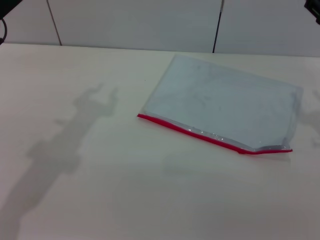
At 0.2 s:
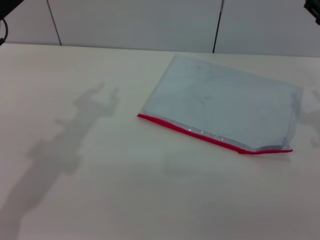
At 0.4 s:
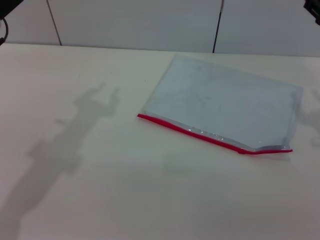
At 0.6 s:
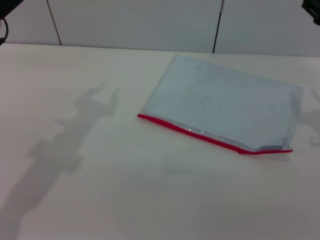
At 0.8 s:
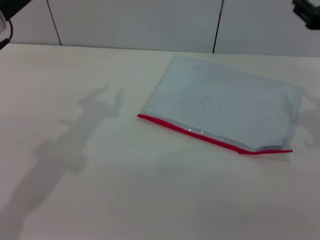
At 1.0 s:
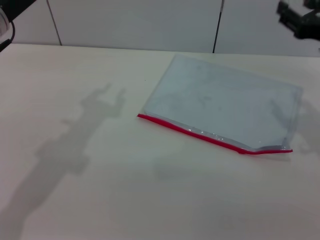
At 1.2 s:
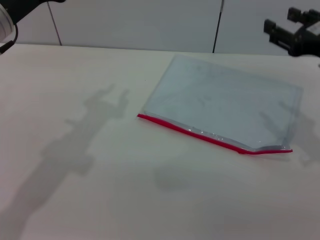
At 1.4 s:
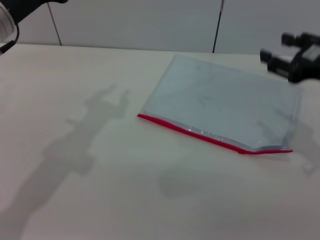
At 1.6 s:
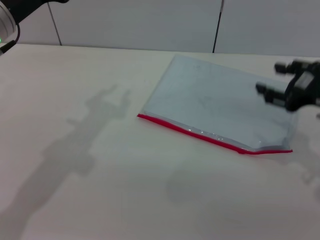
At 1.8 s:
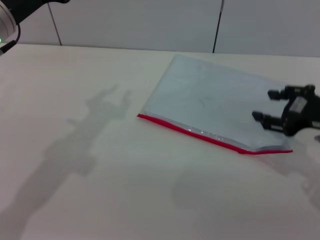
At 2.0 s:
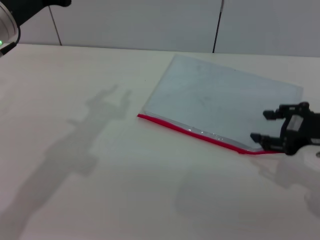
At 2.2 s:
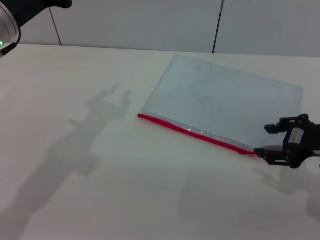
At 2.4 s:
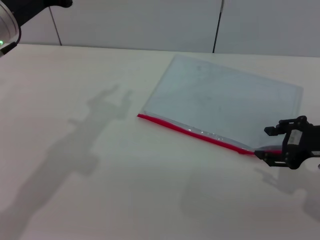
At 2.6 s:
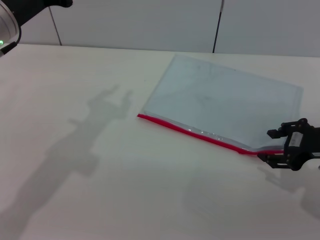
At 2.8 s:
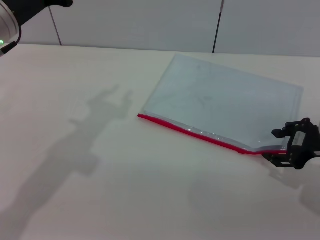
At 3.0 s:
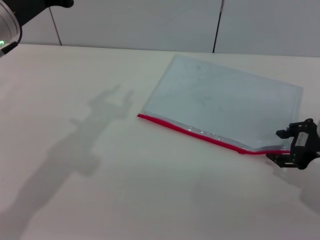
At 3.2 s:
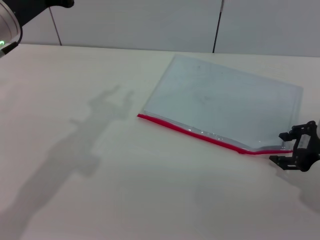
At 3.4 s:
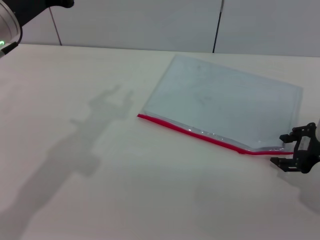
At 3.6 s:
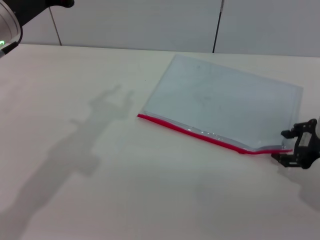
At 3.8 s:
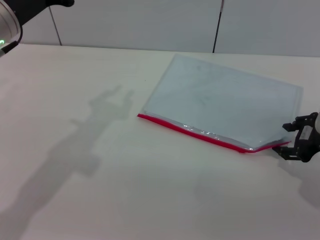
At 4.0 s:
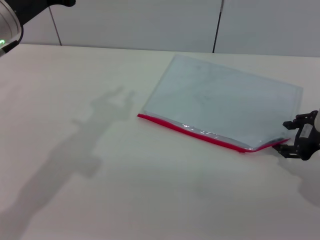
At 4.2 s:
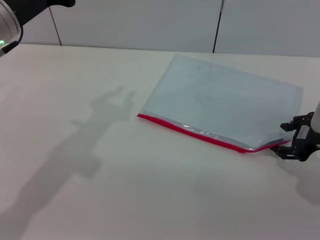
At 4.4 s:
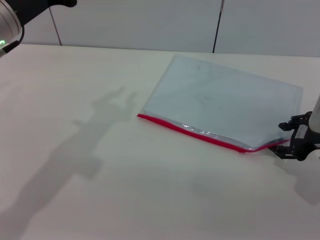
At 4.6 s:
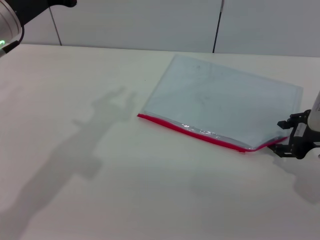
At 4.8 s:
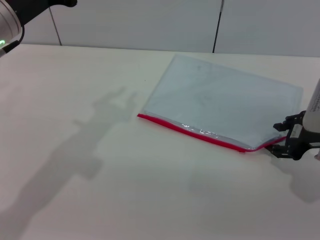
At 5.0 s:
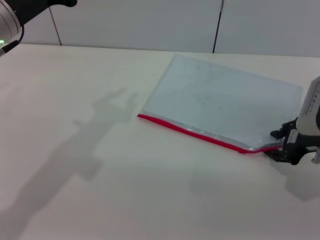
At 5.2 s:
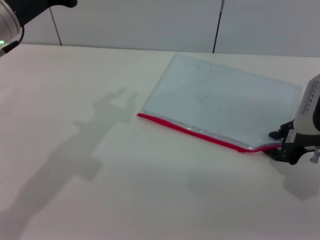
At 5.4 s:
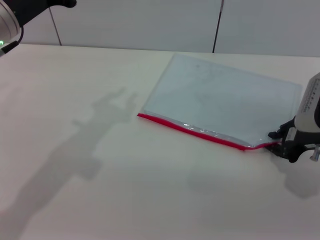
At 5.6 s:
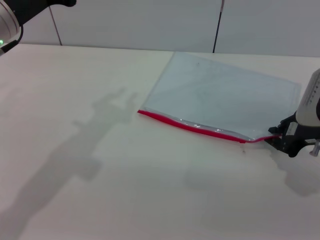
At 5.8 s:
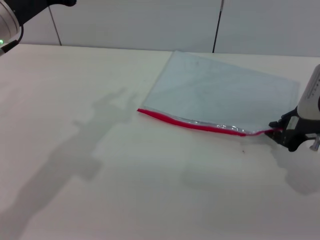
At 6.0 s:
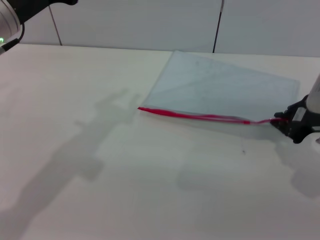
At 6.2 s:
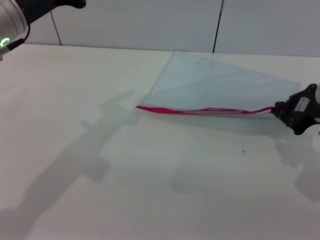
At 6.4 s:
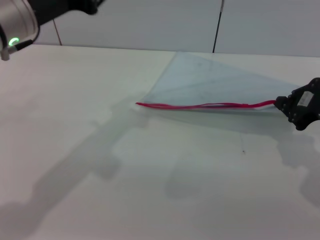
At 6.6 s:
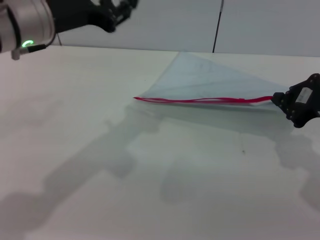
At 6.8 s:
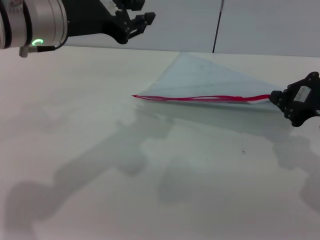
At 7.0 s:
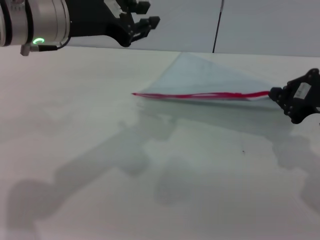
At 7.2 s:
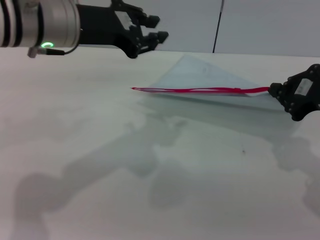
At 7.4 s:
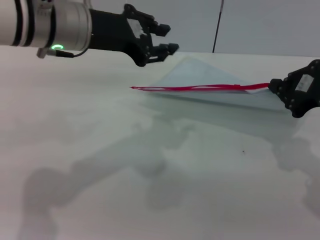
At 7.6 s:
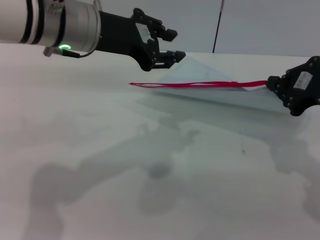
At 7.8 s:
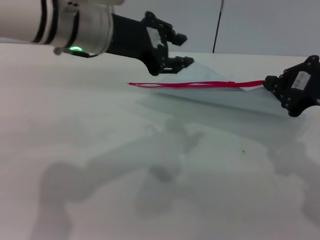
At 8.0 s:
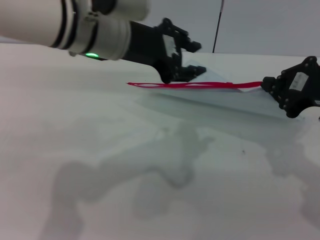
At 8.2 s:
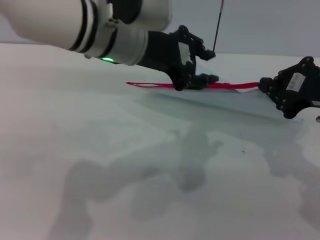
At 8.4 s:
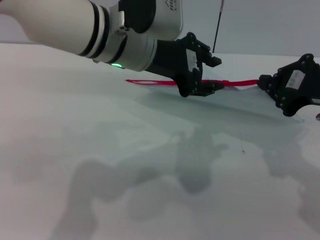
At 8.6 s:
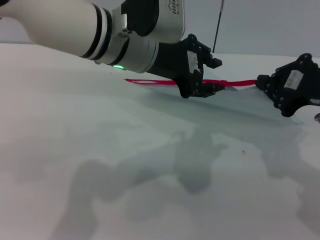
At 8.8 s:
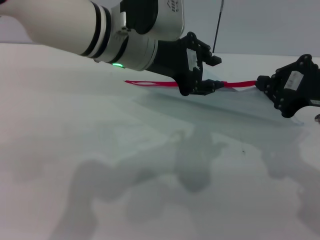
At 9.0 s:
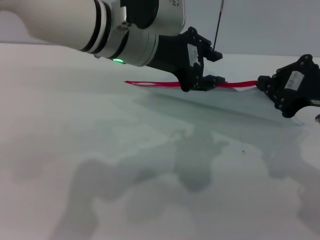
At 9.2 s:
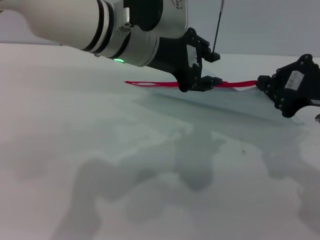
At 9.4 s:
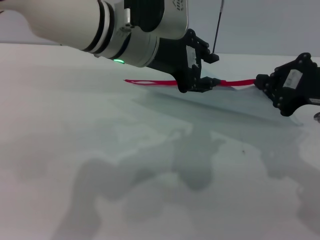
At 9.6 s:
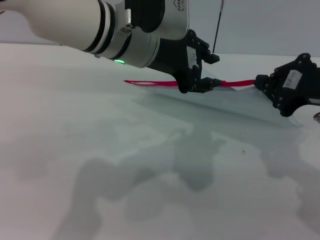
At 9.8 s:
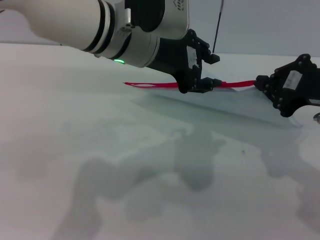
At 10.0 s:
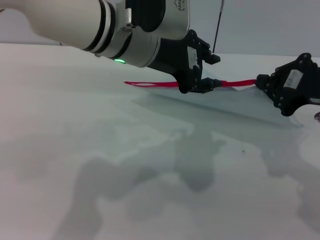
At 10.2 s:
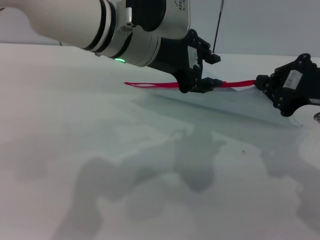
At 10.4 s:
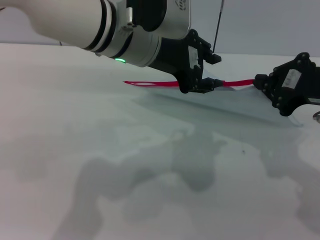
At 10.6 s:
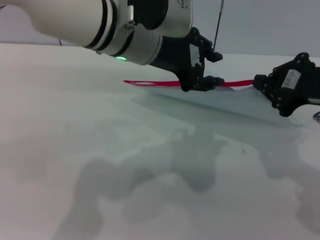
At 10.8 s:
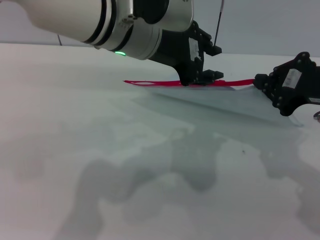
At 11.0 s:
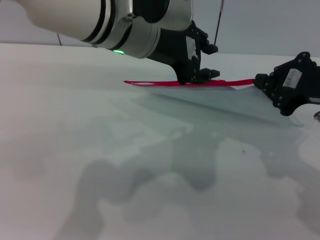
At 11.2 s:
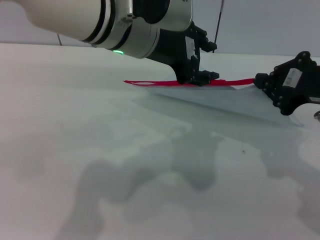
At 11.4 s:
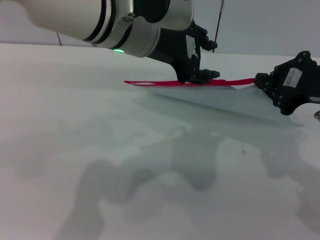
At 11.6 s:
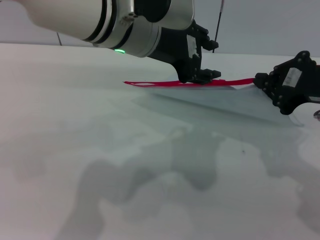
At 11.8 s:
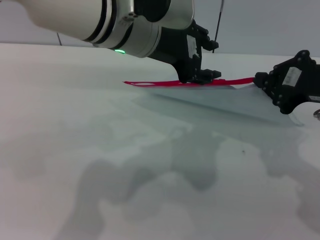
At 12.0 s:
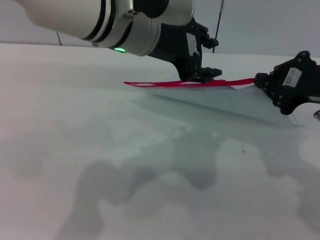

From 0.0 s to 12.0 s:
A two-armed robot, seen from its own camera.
Step, from 0.0 s to 6.4 s: Pick up the transparent plastic bag with the right gripper.
From 3.0 s to 4.4 s: Neither gripper changes place.
From 4.4 s to 6.0 s: The right gripper closes.
From 6.0 s to 7.6 s: The right gripper is displaced upward by some 5 cm; the left gripper goes some 10 cm to the right.
From 7.6 s to 9.0 s: The left gripper travels to the right by some 5 cm.
From 9.0 s to 10.4 s: Both grippers stay put.
From 10.4 s to 12.0 s: Both grippers stay about where they are.

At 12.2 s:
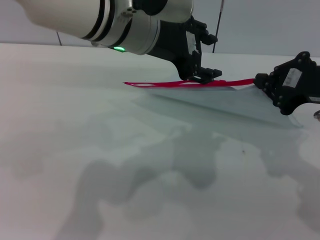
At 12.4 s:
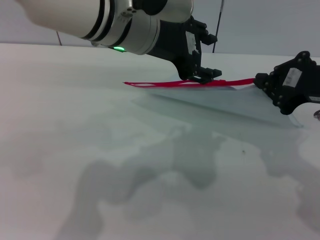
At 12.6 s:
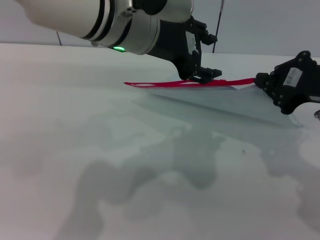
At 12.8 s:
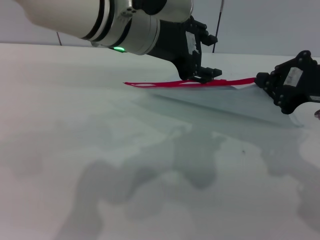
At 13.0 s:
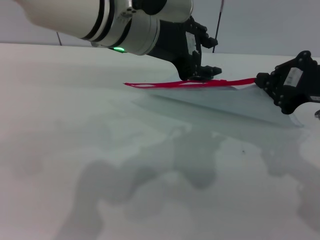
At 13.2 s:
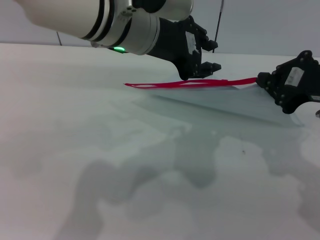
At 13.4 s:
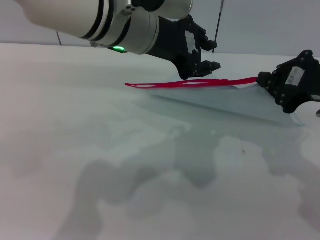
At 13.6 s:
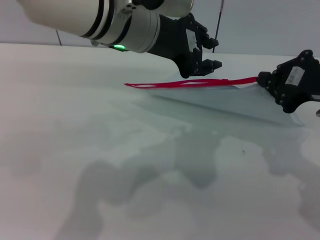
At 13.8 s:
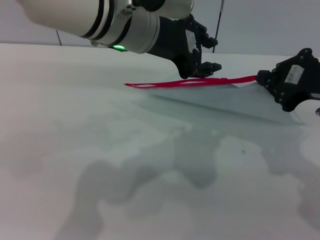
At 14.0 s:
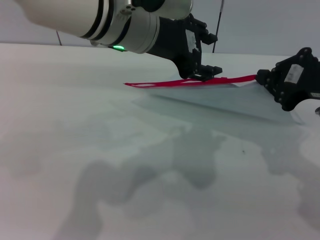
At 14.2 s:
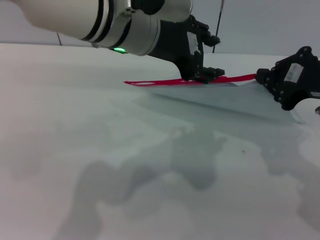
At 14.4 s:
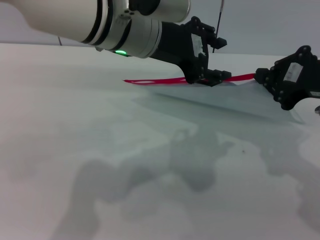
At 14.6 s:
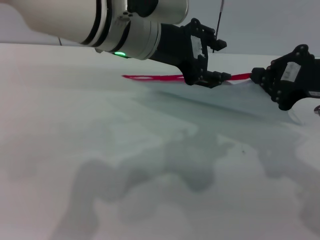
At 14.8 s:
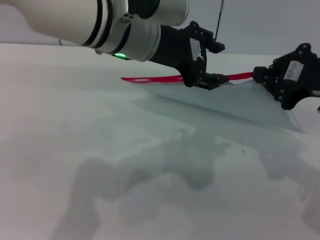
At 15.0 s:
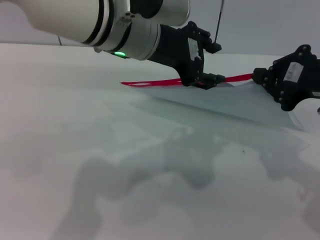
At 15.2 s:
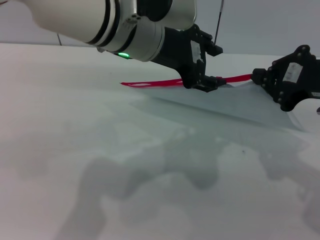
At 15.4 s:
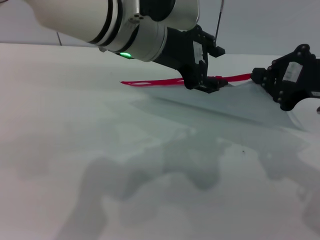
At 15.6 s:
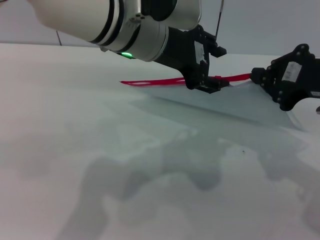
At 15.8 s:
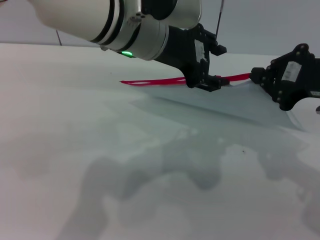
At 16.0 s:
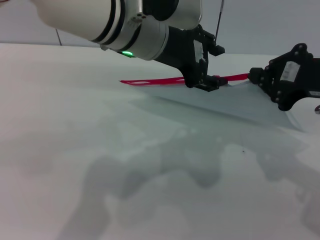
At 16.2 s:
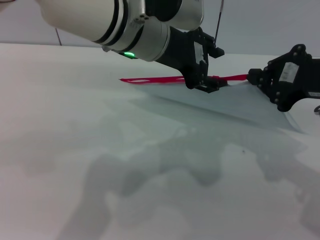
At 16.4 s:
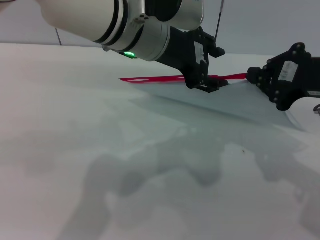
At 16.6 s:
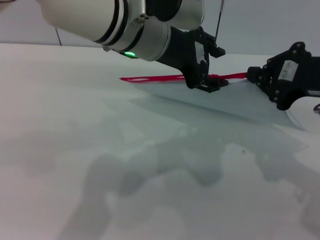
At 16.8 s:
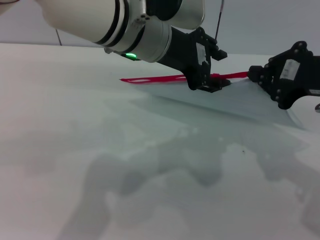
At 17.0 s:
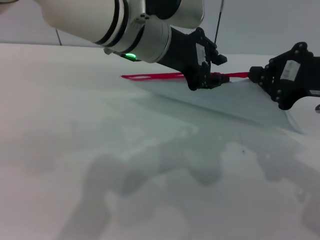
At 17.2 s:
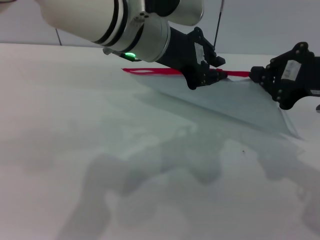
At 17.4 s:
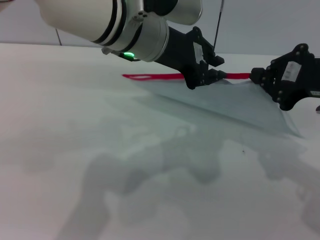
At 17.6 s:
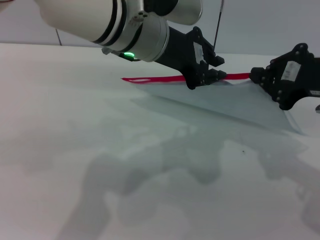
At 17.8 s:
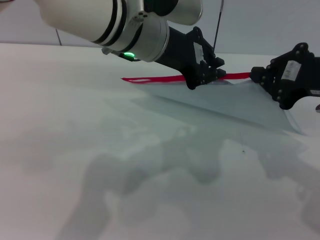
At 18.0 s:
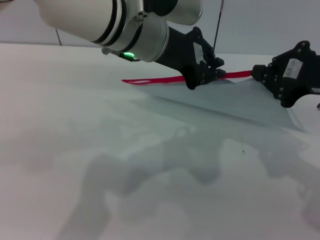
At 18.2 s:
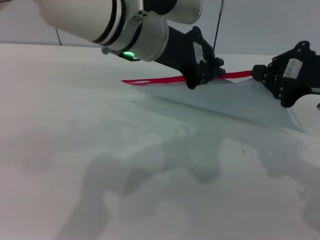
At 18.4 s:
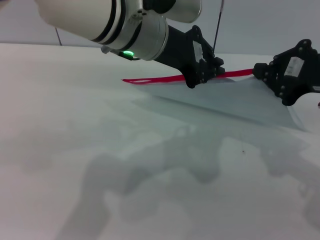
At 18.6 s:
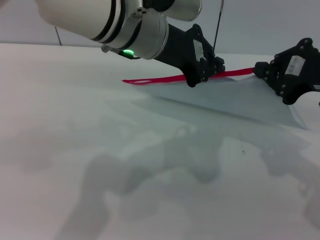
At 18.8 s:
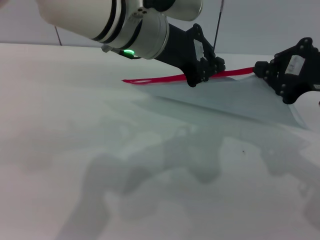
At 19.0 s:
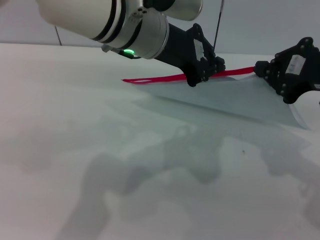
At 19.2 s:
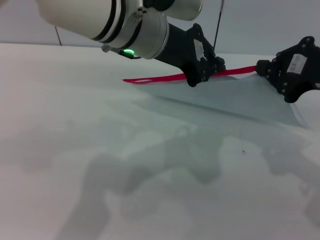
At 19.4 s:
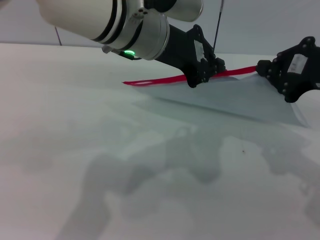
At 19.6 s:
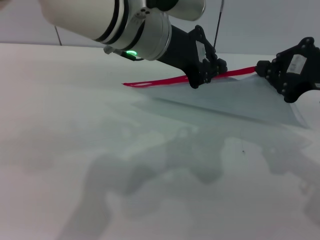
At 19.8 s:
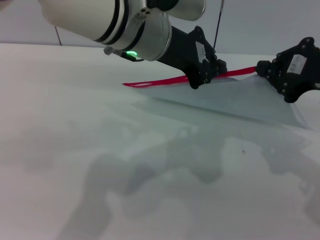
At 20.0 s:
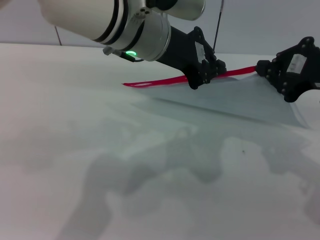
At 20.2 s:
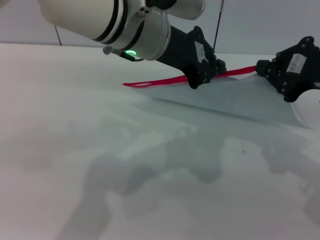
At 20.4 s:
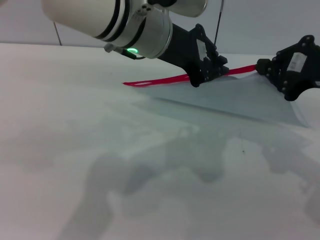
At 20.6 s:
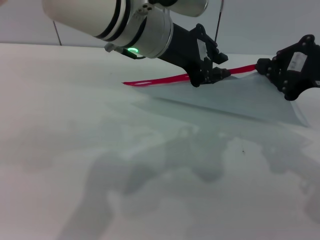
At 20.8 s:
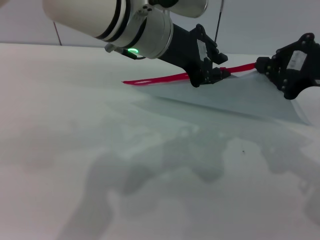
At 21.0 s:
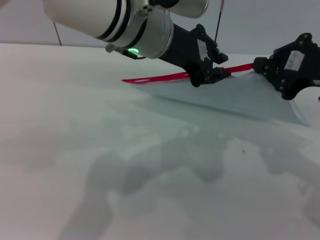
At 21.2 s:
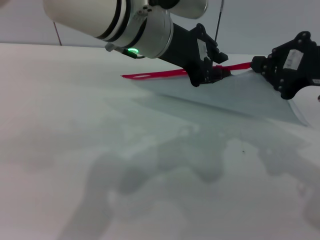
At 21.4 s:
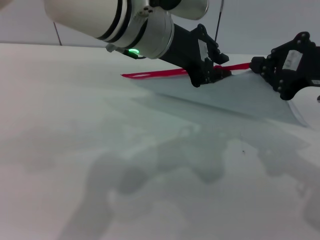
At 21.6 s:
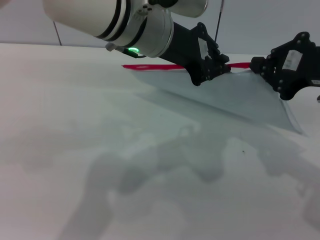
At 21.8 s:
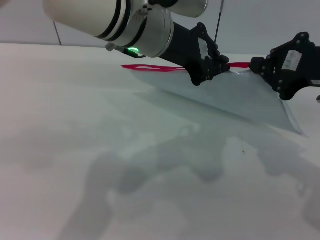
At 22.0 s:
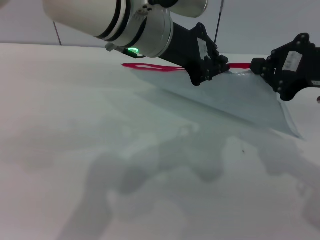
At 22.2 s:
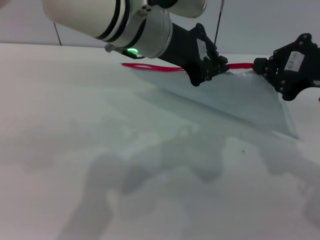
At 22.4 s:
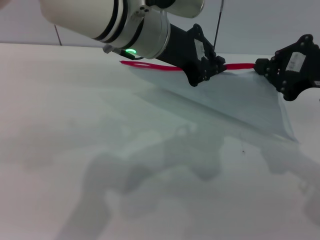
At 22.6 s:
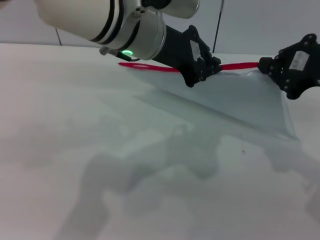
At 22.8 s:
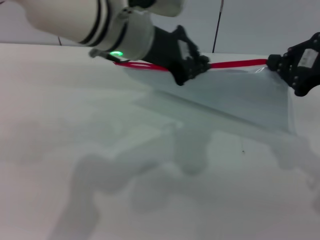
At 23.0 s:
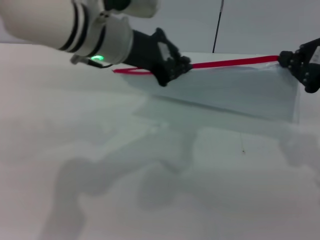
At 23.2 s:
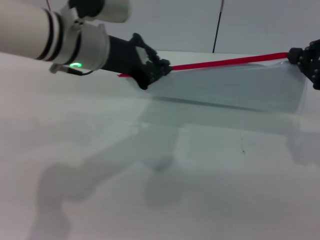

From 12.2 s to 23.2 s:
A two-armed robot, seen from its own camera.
From 12.2 s to 13.8 s: Neither gripper changes place.
From 13.8 s to 15.4 s: The left gripper opens.
From 15.4 s to 17.0 s: The two grippers keep their place.
From 17.0 s to 18.4 s: The left gripper closes up.
From 18.4 s to 21.6 s: Both grippers stay put.
From 21.6 s to 23.2 s: The left gripper shifts roughly 10 cm to the left.
